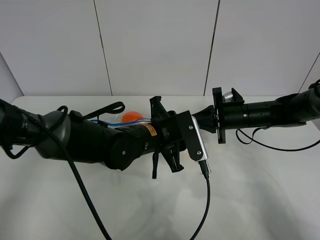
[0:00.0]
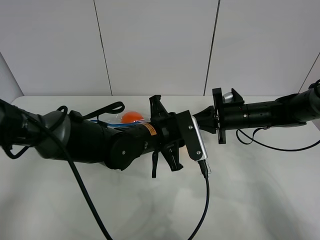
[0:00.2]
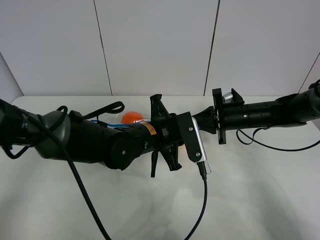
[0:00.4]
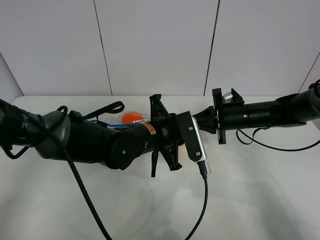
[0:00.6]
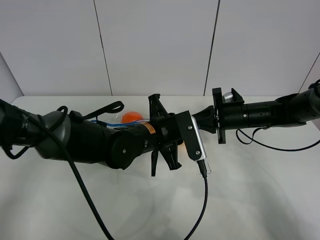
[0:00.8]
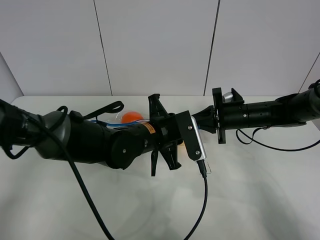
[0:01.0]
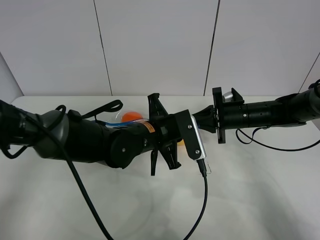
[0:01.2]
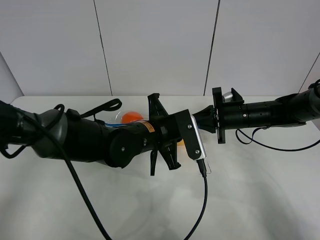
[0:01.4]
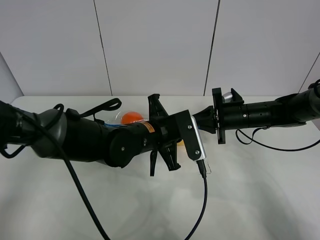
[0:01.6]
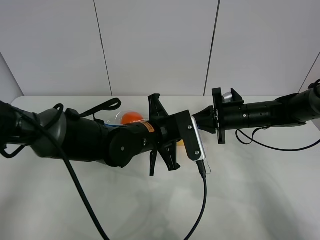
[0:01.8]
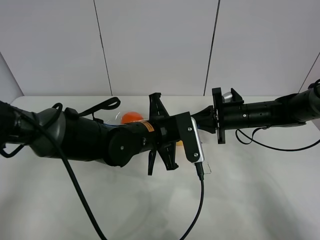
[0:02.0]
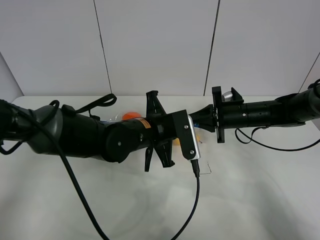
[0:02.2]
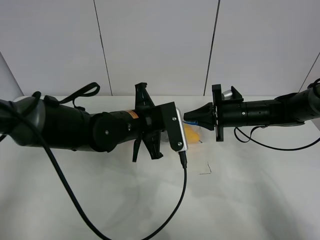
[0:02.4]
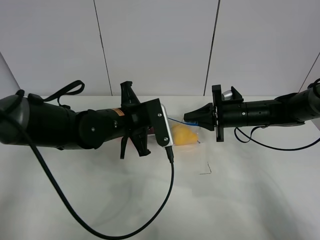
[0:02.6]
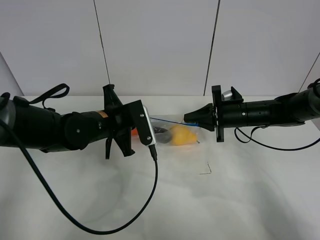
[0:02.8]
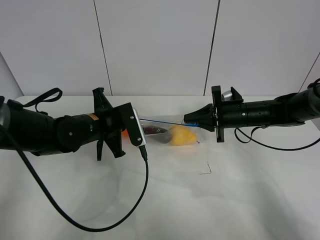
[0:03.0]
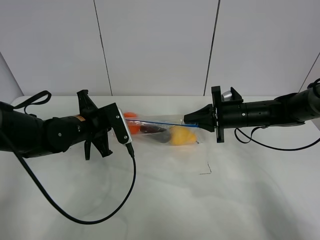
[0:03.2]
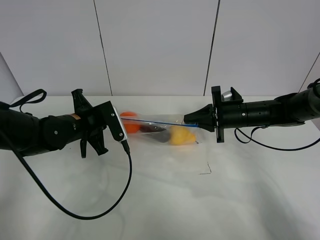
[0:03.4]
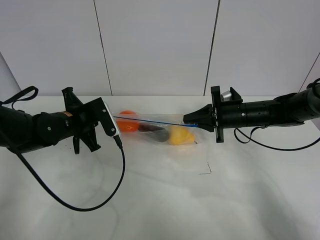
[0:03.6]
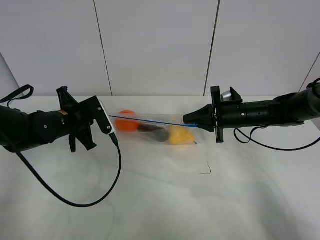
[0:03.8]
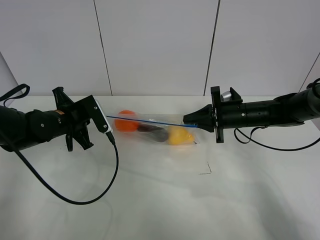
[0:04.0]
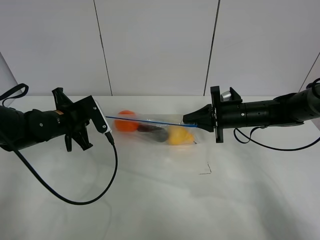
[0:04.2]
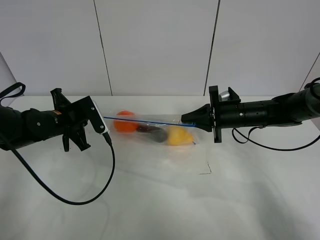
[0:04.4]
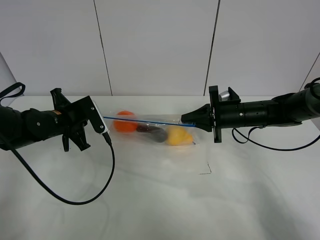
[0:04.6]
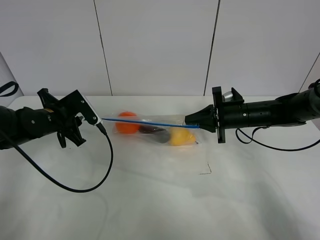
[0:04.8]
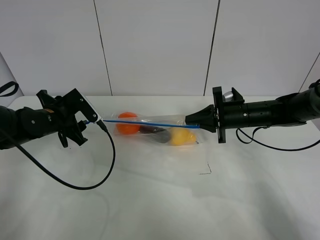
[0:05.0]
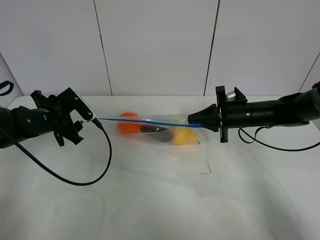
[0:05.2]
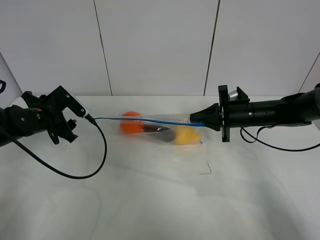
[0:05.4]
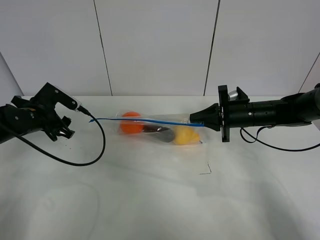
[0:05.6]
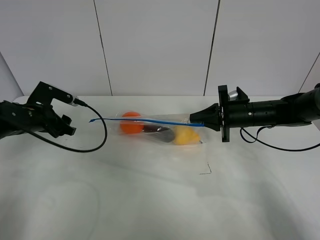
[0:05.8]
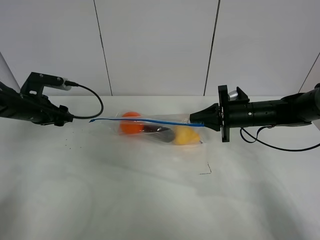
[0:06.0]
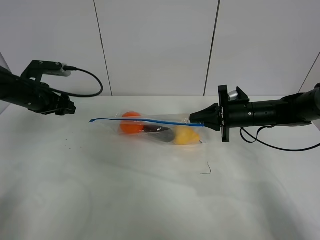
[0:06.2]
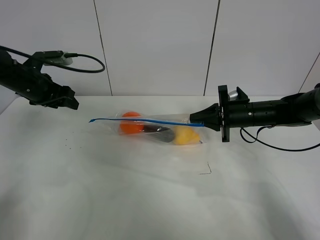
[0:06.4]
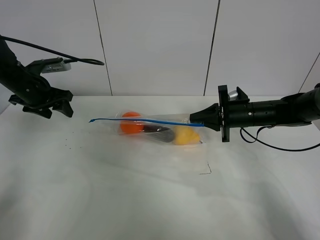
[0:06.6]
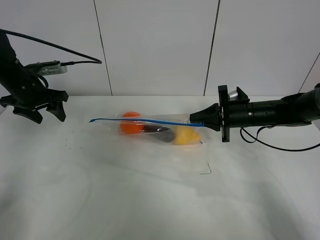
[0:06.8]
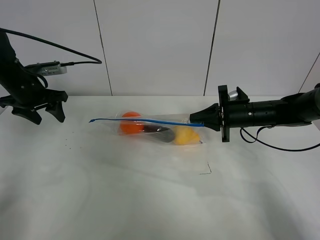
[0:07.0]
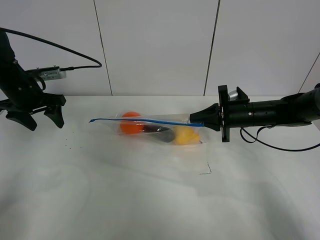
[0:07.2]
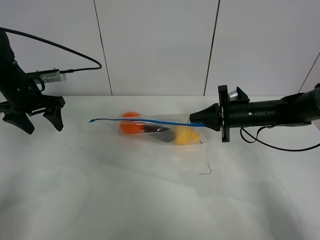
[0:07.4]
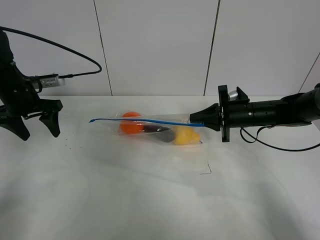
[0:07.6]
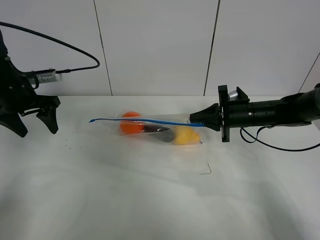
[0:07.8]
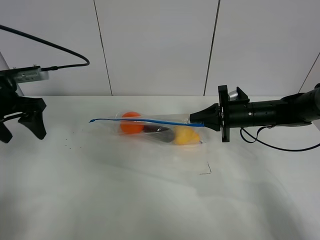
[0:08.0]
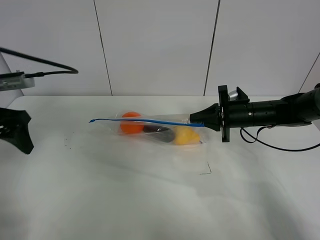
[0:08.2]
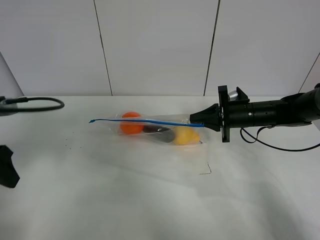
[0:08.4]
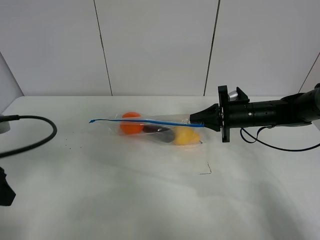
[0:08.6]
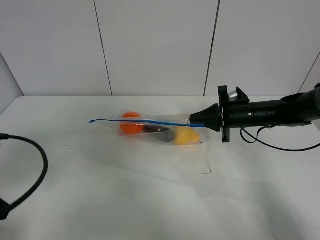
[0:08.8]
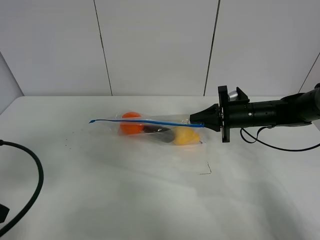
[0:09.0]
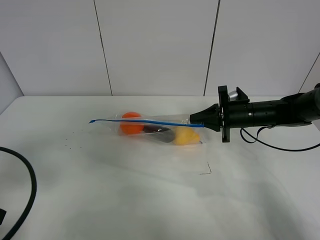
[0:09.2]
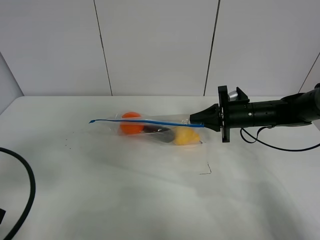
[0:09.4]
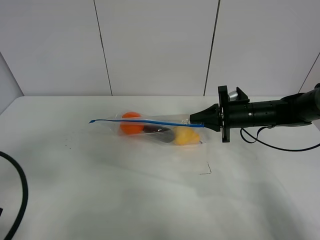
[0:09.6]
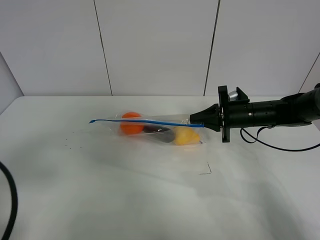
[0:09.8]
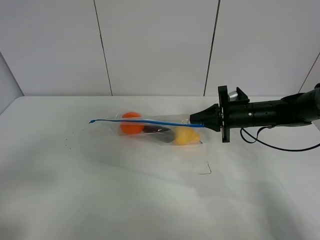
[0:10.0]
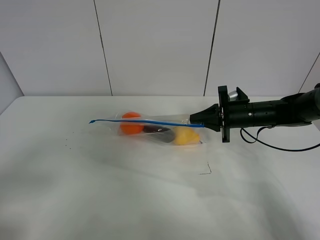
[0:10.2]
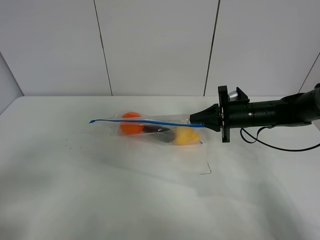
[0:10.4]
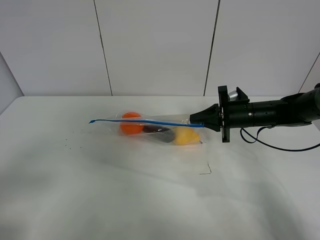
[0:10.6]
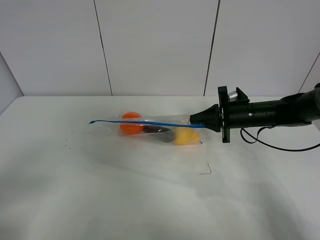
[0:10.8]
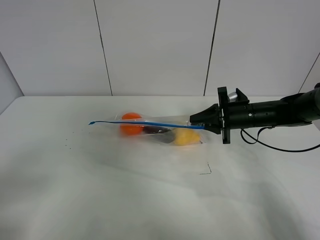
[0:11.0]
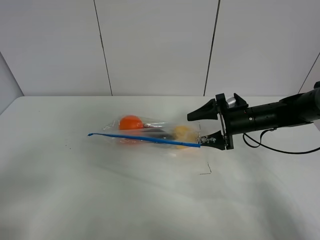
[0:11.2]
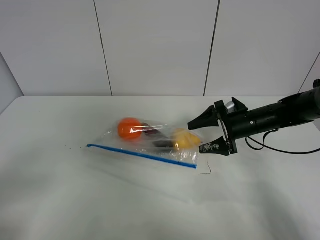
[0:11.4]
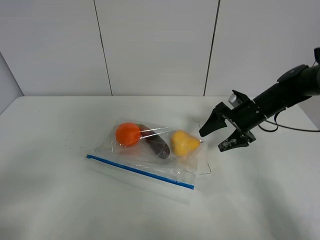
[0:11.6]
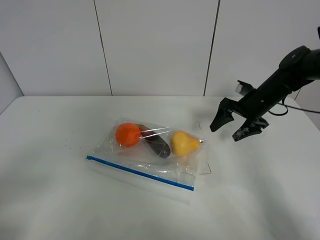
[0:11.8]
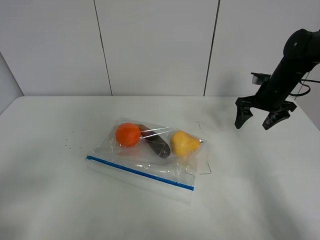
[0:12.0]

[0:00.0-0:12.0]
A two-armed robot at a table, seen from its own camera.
Step, 0:00.0 to 0:04.8: Pull the fruit bag with left gripper.
0:00.0 to 0:01.6: The left gripper closes.
0:01.6 to 0:03.0: The left gripper heads to the left, covering roughly 10 cm.
0:03.0 to 0:04.4: The left gripper moves to the left, approximately 10 cm.
0:04.4 to 0:06.0: The left gripper is displaced to the left by roughly 10 cm, and opens its fingers.
0:07.6 to 0:09.0: The left gripper is displaced backward by some 25 cm.
0:09.0 to 0:10.4: The left gripper is displaced backward by roughly 10 cm.
0:10.4 to 0:12.0: The right gripper goes some 10 cm to the right, forward and upward, and opens its fingers.

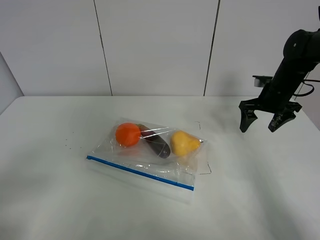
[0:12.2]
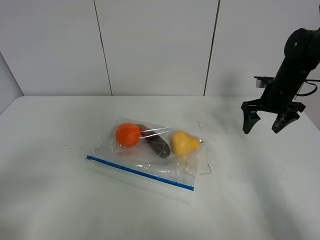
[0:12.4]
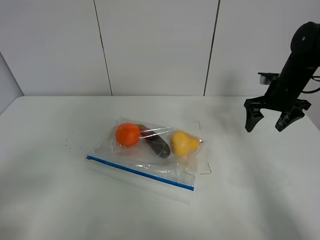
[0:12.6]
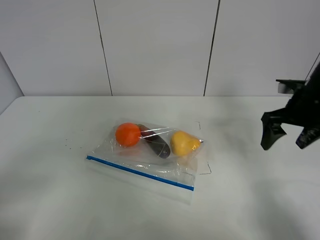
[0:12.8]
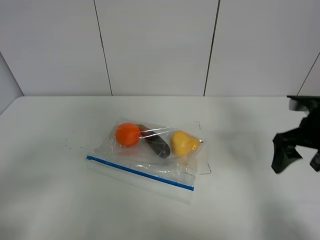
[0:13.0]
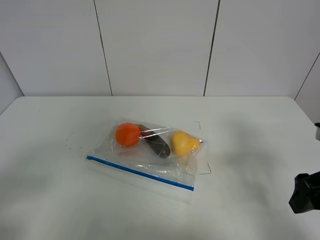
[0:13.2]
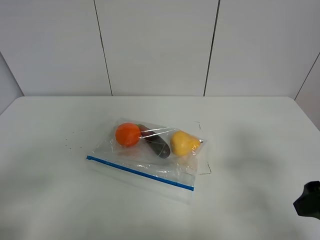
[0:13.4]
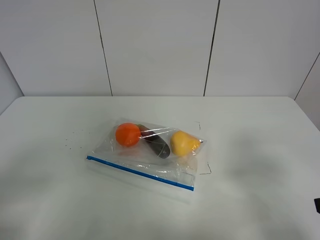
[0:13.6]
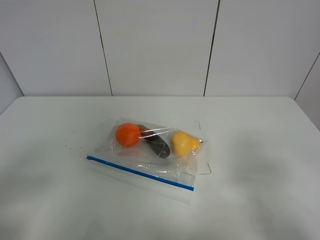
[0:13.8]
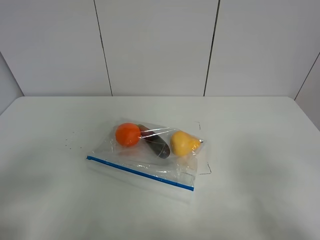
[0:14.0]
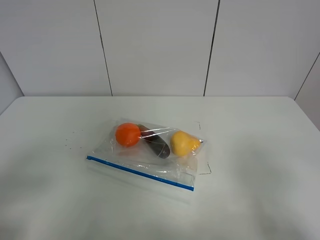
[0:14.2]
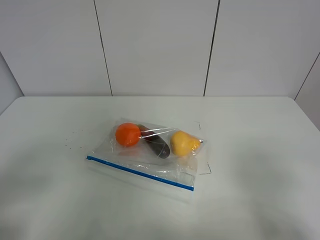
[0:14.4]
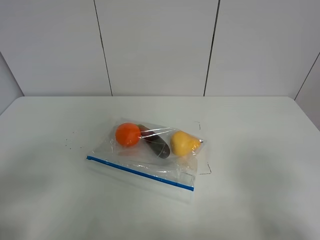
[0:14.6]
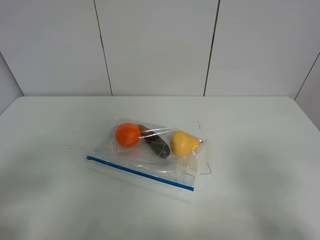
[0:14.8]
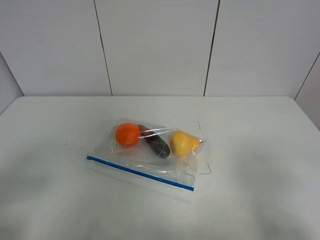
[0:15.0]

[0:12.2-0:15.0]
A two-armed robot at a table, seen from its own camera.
0:12.2 to 0:13.6: The right gripper moves backward, about 35 cm.
